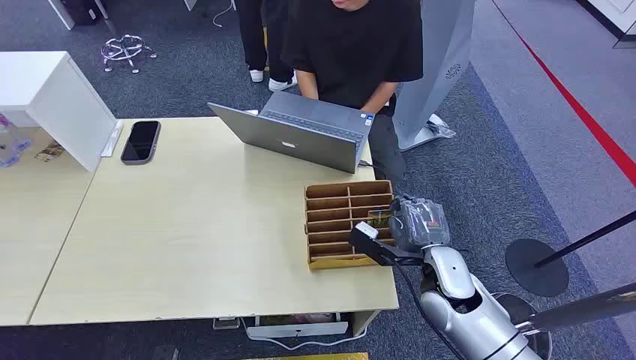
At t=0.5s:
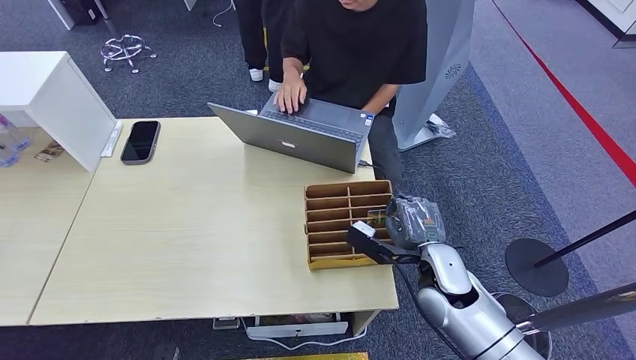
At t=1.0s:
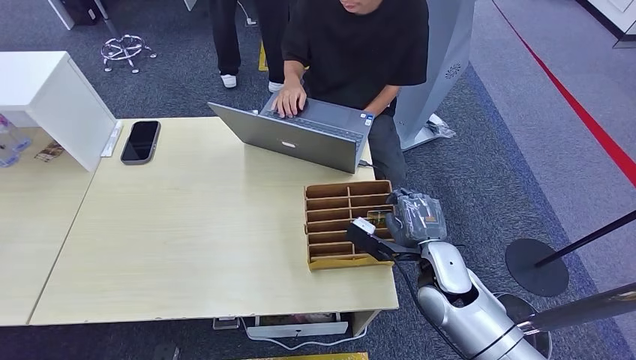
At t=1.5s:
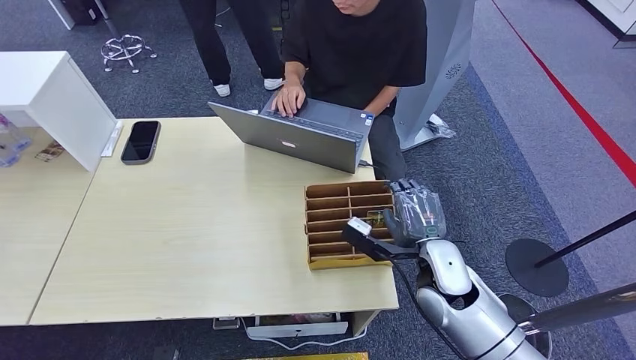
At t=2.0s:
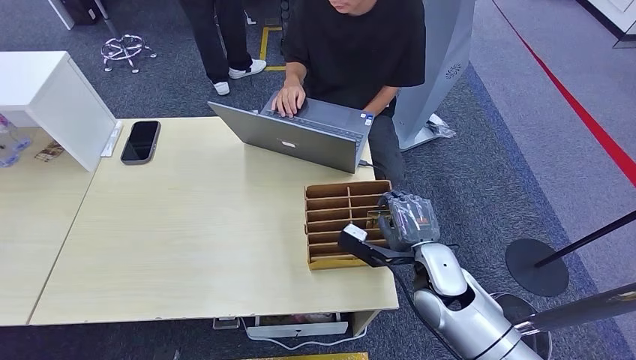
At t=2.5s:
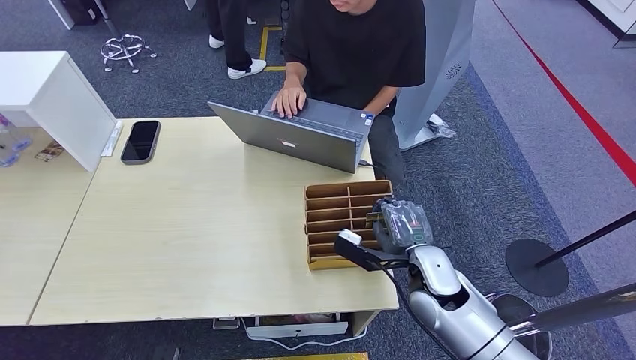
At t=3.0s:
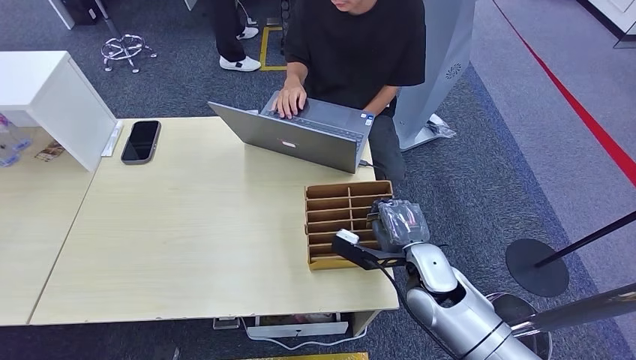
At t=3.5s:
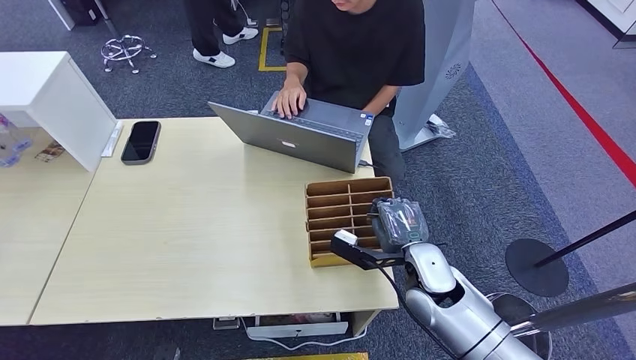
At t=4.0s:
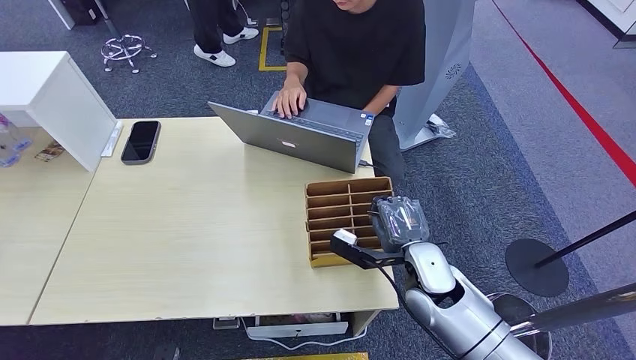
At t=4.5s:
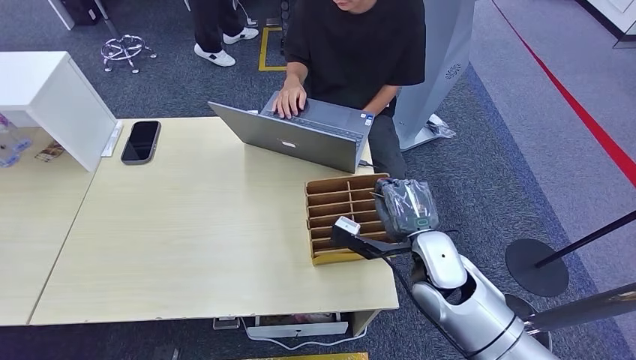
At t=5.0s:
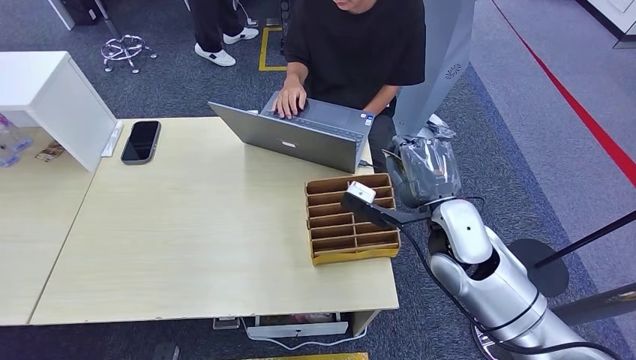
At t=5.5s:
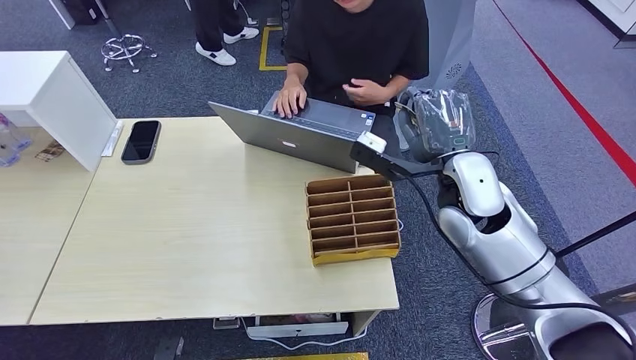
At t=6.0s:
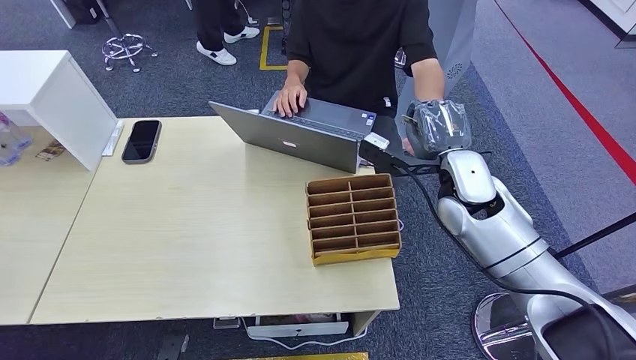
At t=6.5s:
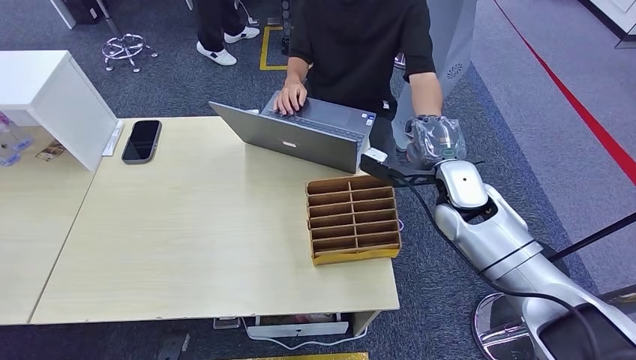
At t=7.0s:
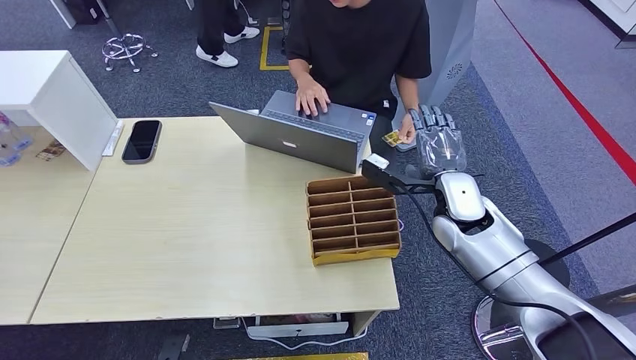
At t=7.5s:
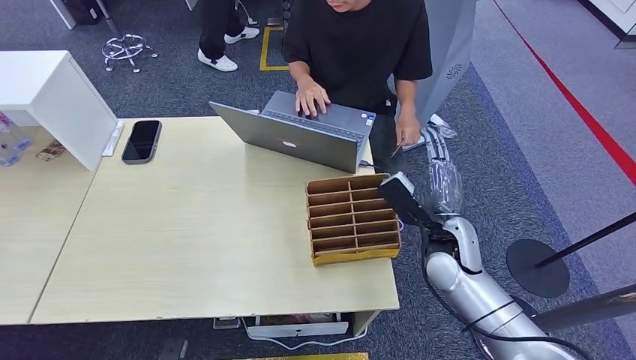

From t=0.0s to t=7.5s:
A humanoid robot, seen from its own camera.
Step, from t=0.0s to t=5.5s: Pick up the room card from the card holder.
Step, from t=6.5s to t=7.5s: Hand the room card to the target.
From t=2.0s to t=4.0s: There are only small adjustments of the hands.
From t=4.0s to t=5.5s: The right hand travels upward by about 15 cm.
From t=5.5s to t=7.5s: The right hand shifts some 15 cm downward.
